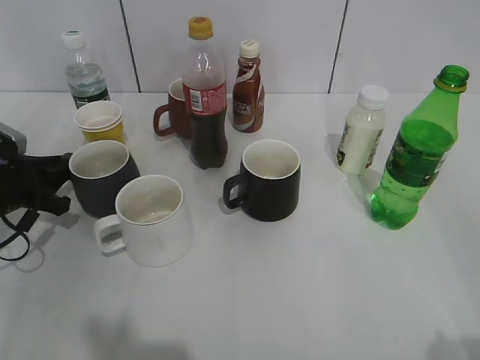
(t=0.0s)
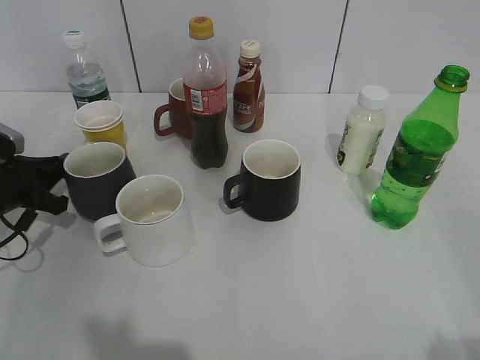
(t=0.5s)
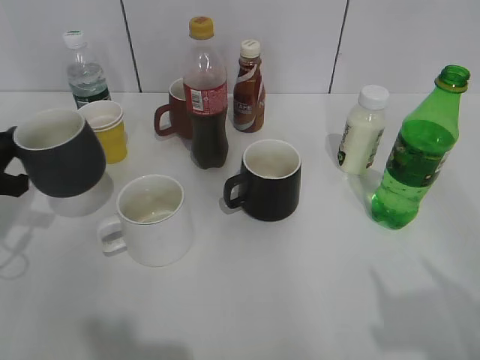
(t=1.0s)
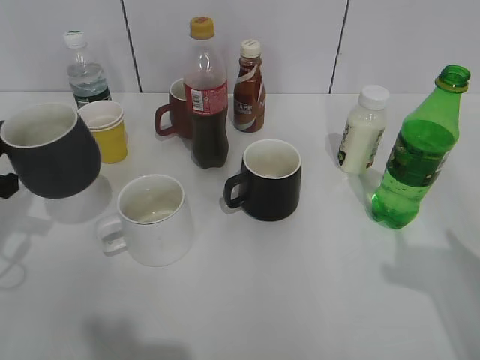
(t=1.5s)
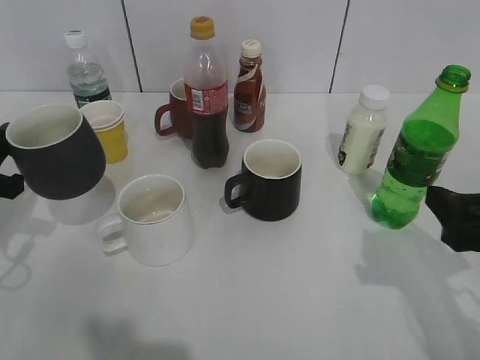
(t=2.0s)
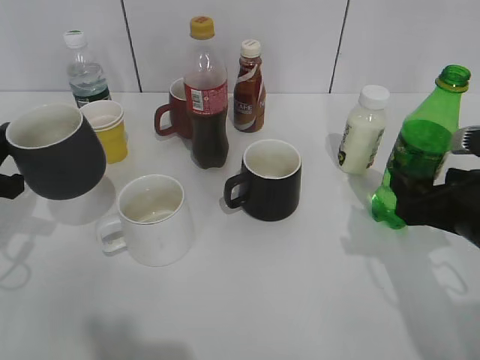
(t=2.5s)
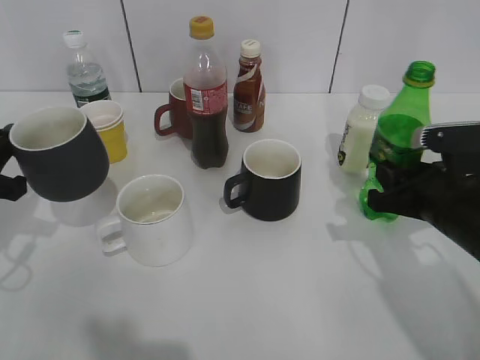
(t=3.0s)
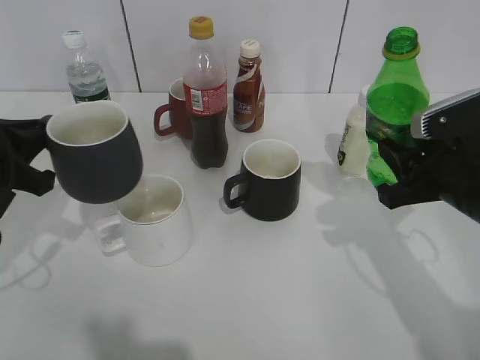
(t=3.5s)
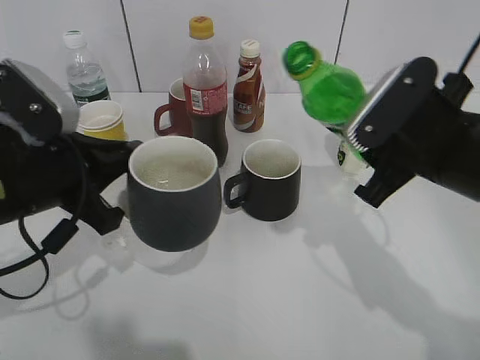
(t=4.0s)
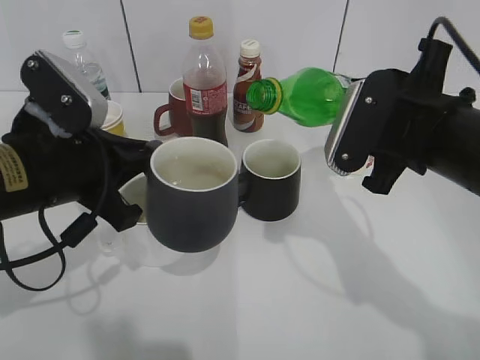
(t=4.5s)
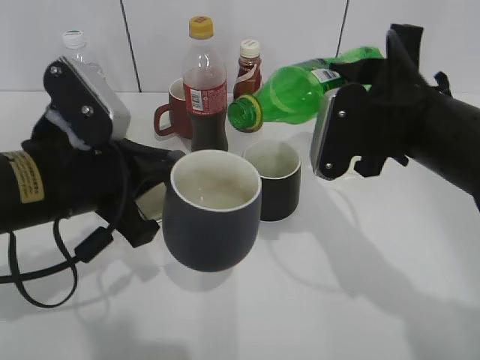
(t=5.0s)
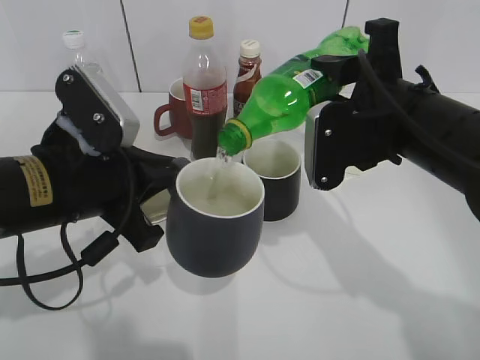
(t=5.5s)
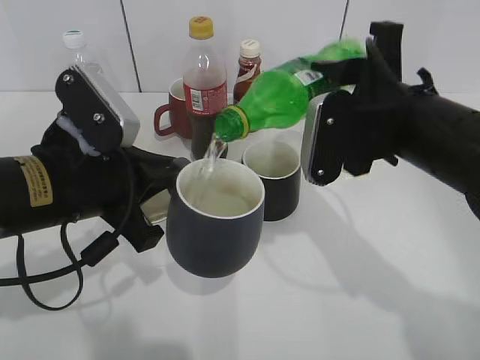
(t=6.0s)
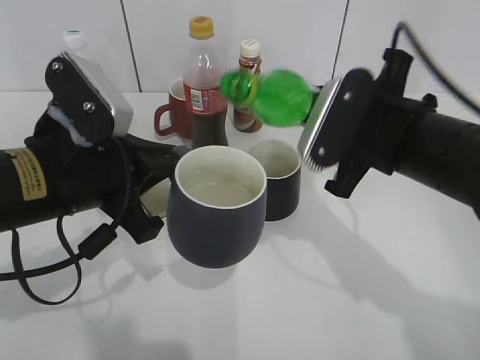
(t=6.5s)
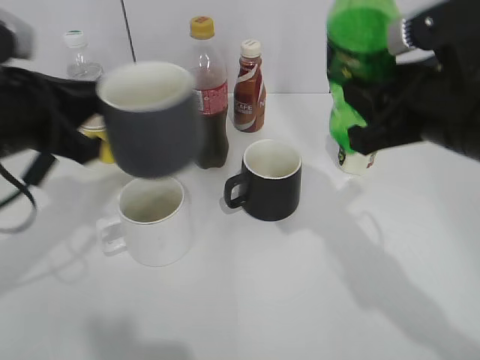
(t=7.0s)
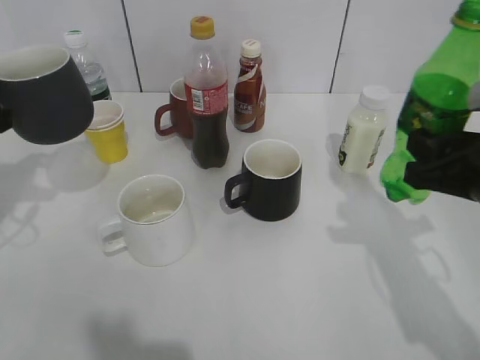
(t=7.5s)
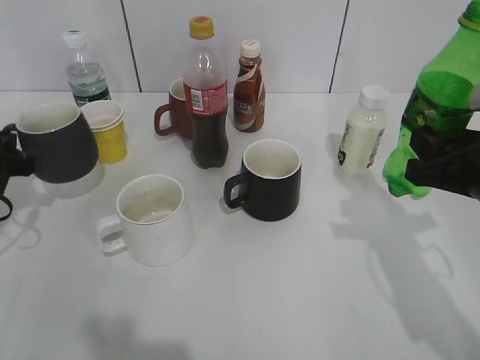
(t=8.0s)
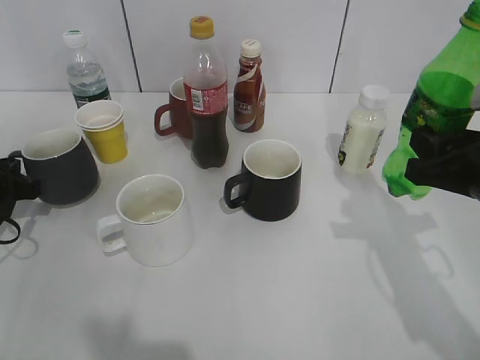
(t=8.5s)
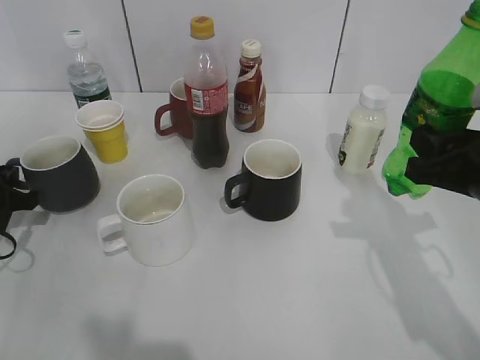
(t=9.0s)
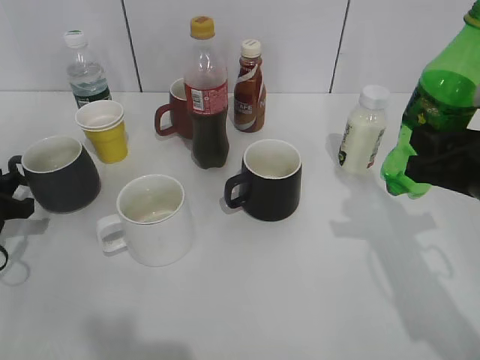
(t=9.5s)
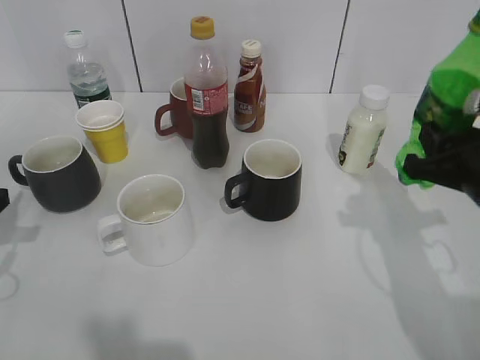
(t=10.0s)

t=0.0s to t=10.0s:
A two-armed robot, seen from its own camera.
Step, t=0.5s to t=1.0s: Lift the grey cup with left gripper.
Step, t=1.5s to t=3.0s: Grasp the bottle with sprite with right gripper.
Step, t=3.5s to t=6.0s: Pour the sprite from bottle to cup with right gripper.
Step, t=7.0s to t=9.0s: Place the grey cup on the table with left gripper.
t=0.0s to t=2.0s: The left gripper goes roughly 10 cm upward and backward, and closes up; the right gripper travels forward and downward by approximately 20 cm.
t=2.0s to t=4.0s: The right gripper moves forward and to the left, about 10 cm, and closes up. The left gripper heads to the right, covering about 10 cm.
t=6.0s to t=8.0s: The left gripper moves to the left and forward, roughly 20 cm. The right gripper travels to the right by approximately 10 cm.
t=8.0s to t=10.0s: The left gripper is displaced backward by about 5 cm, and opens up.

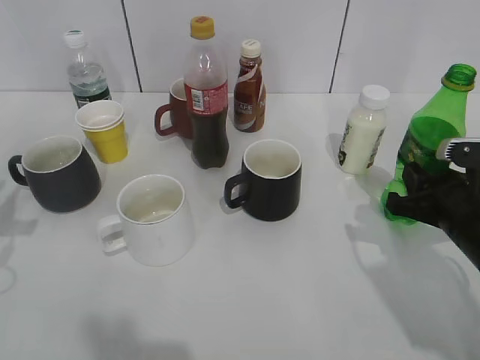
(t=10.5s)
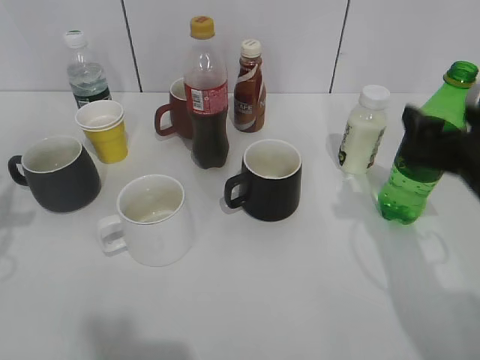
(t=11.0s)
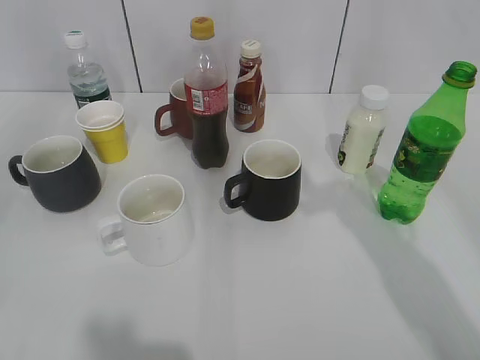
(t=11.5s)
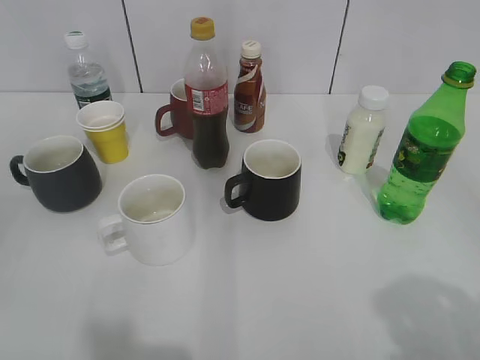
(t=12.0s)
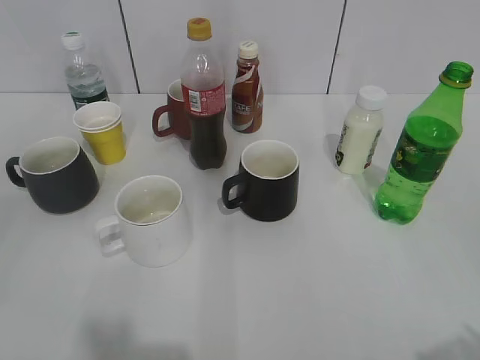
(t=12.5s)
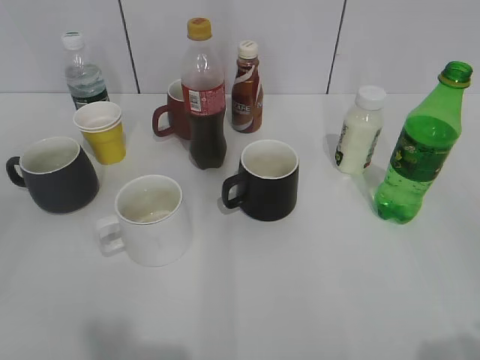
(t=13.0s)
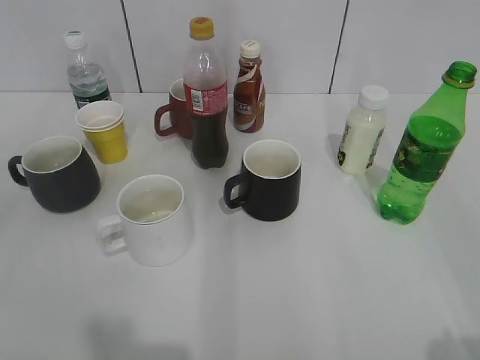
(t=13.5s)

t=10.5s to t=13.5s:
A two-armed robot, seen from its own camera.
t=10.5s to t=12.0s: The right gripper shifts some 30 cm upward and backward, and opens its fingers.

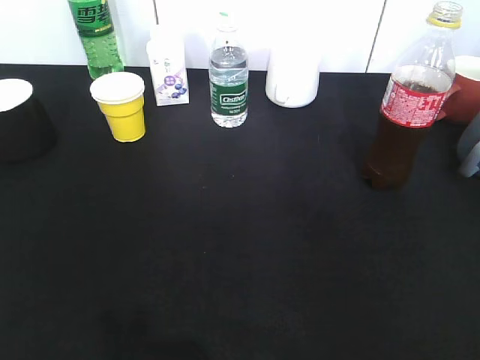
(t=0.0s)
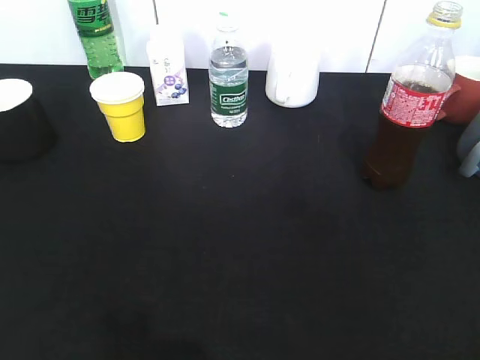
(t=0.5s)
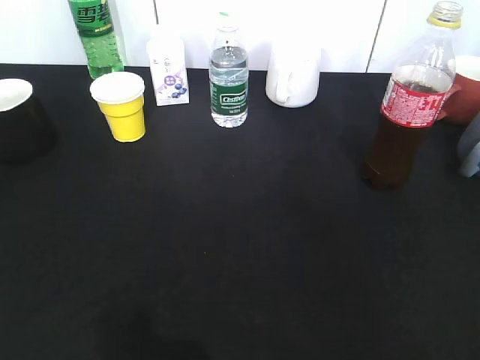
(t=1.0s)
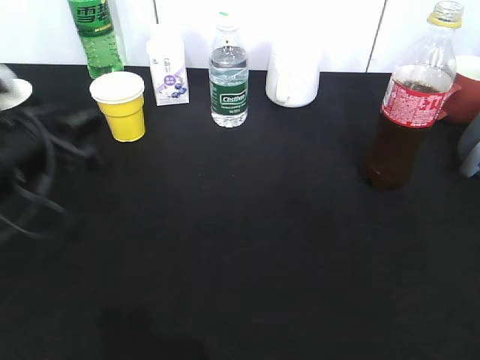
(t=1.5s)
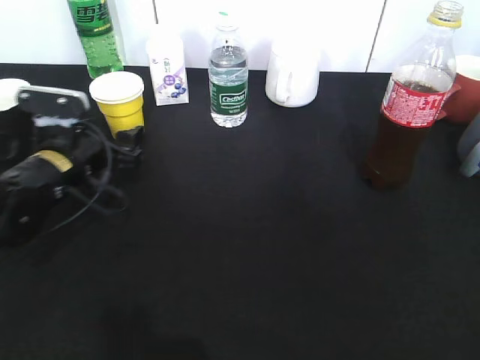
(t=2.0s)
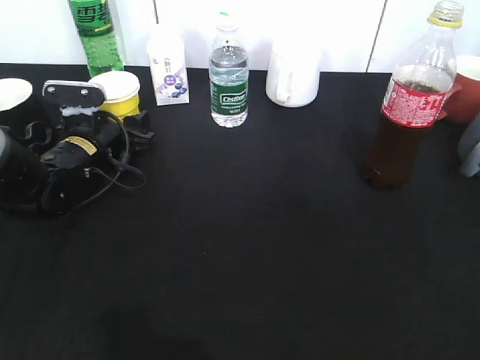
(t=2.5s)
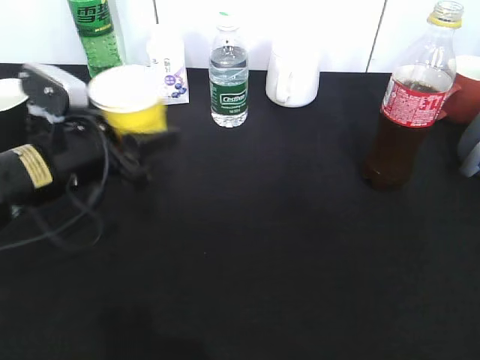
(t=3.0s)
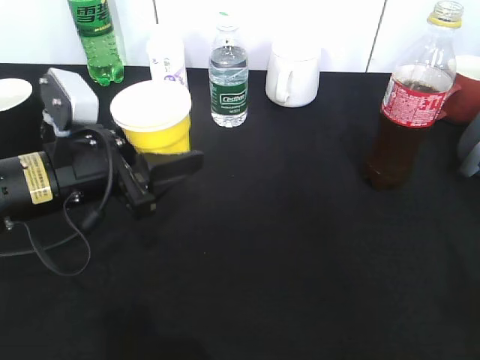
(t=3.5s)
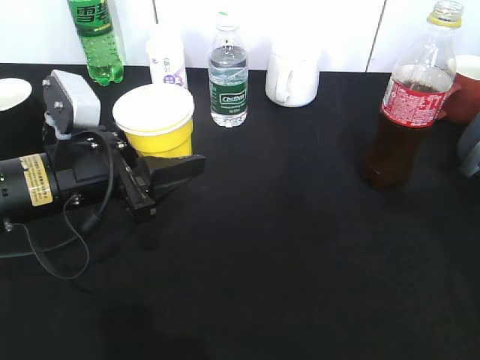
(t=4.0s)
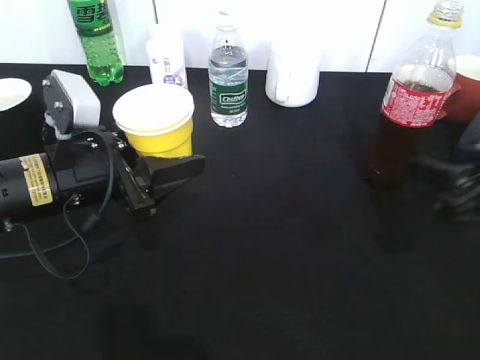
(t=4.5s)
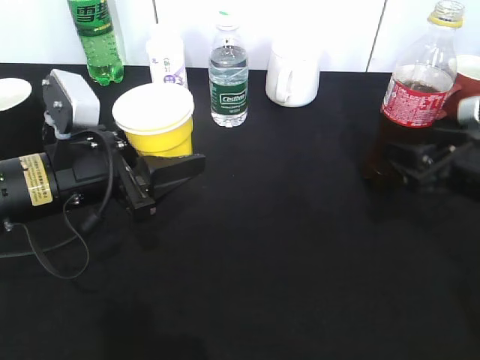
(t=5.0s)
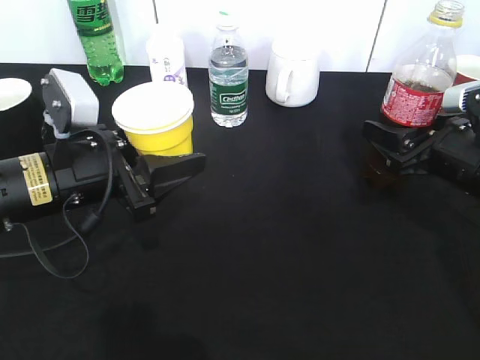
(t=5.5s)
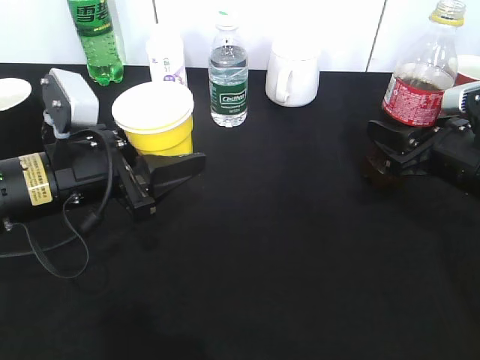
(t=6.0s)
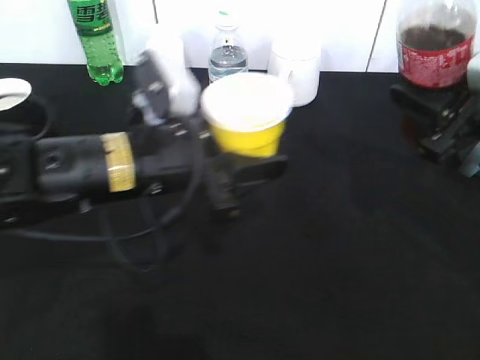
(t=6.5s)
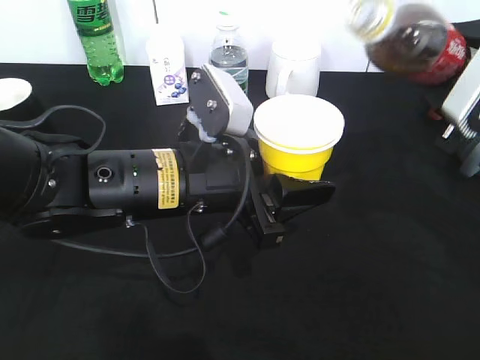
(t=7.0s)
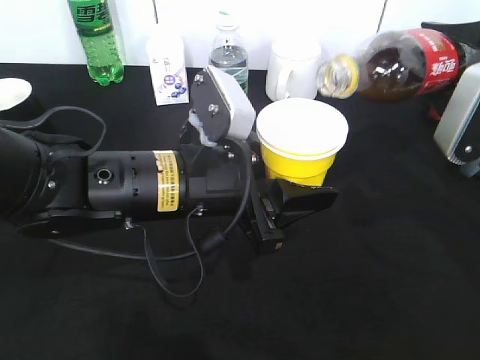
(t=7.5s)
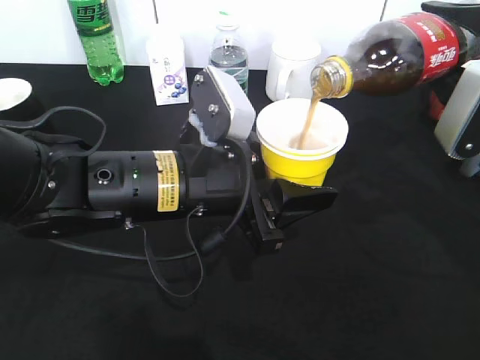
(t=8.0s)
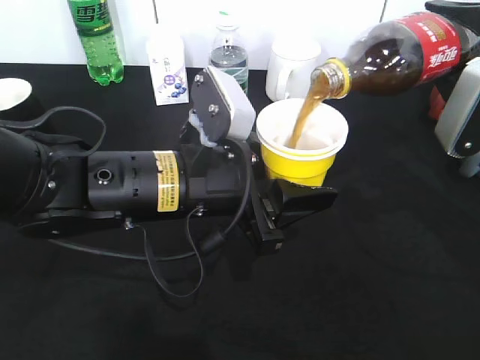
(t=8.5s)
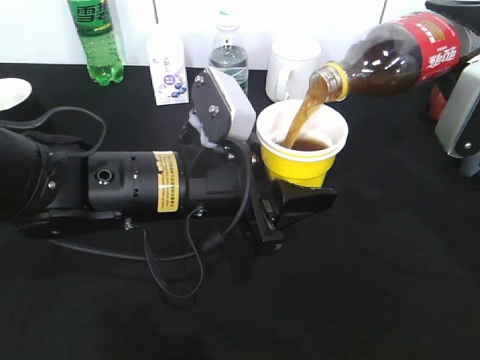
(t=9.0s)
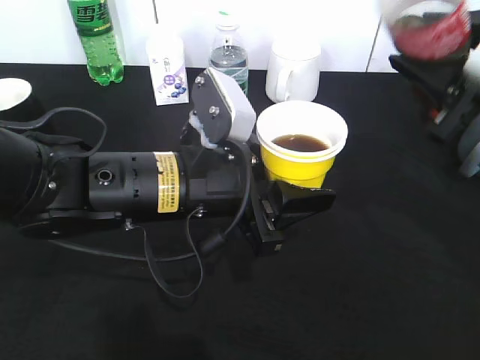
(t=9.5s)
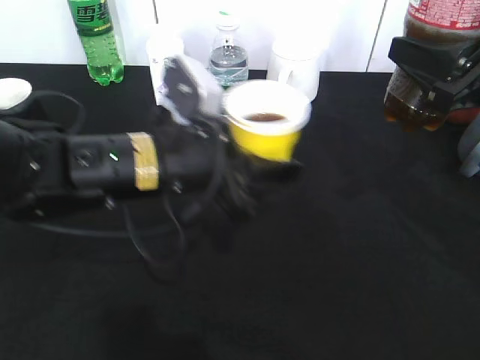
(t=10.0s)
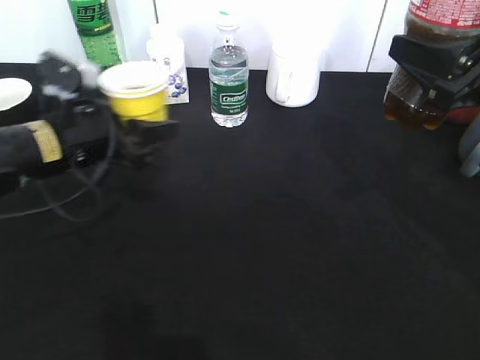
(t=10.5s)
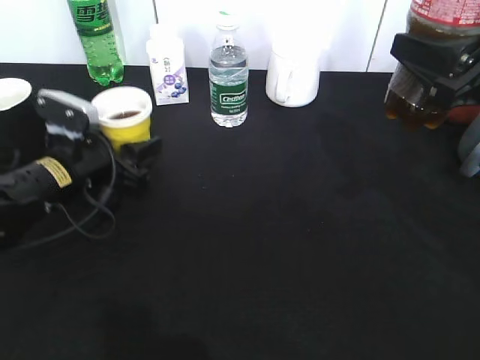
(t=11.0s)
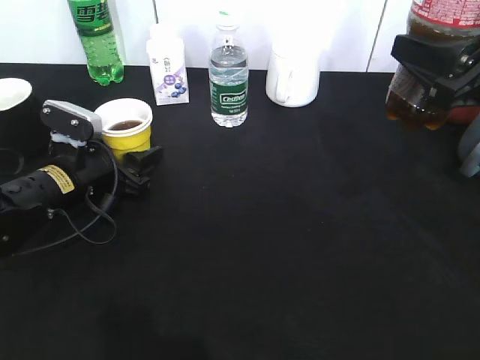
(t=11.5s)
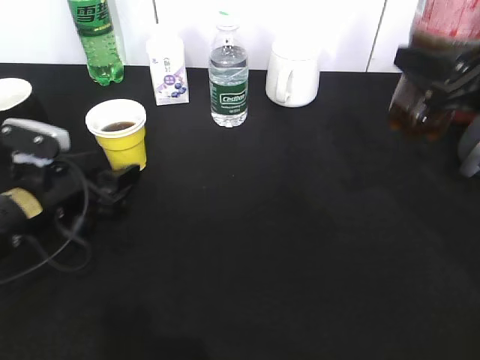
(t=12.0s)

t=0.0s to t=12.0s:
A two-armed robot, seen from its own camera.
Step, t=0.0s to t=2.5s: Grasp the yellow paper cup with left gripper.
Step, t=4.5s to t=6.0s: Grasp the bottle with cola with right gripper.
Step, t=6.5s to t=9.0s: Pour the cola from bottle to cup with right gripper.
t=0.0s to t=2.0s: The left gripper shifts about 35 cm forward and downward, and opens up.
t=2.0s to t=4.0s: The left gripper moves backward and upward, roughly 10 cm, and closes its fingers. The right gripper is displaced forward by about 20 cm.
t=4.0s to t=6.0s: The right gripper travels downward and forward by roughly 15 cm, and closes.
t=6.0s to t=8.0s: The left gripper is displaced to the right by approximately 10 cm. The right gripper moves upward, about 10 cm.
t=10.0s to t=12.0s: The left gripper moves to the left and downward, some 15 cm, and opens.
